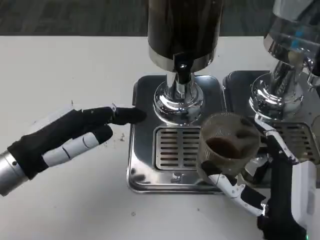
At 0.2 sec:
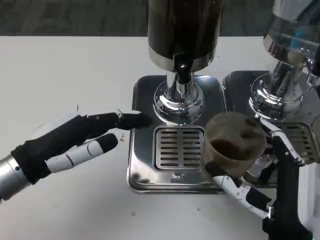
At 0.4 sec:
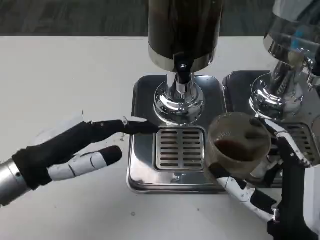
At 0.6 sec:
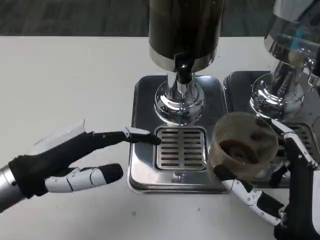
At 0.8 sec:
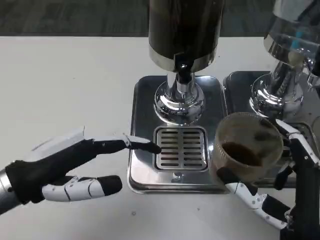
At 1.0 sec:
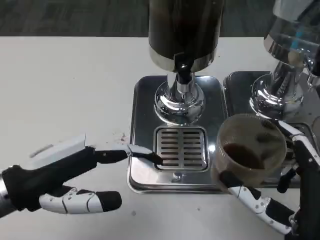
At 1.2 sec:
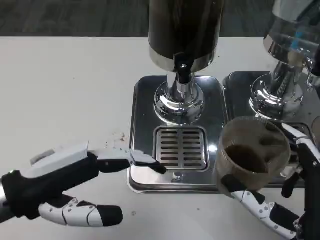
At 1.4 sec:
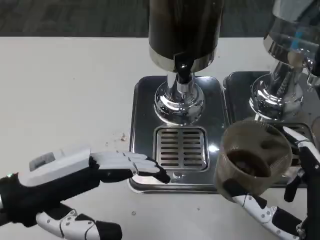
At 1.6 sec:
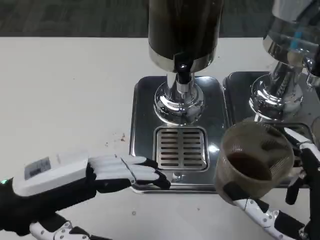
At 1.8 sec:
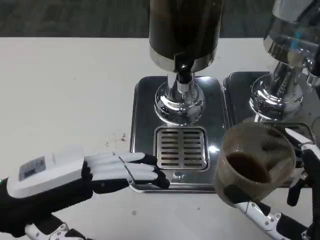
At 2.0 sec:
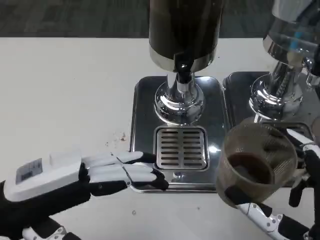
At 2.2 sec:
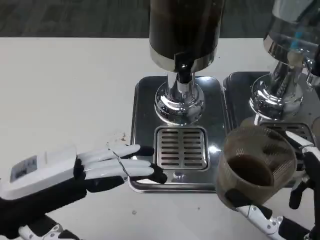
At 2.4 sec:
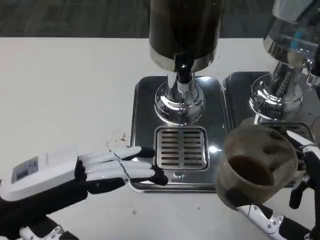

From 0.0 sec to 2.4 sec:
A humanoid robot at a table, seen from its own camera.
Task of the whole recording: Grasp the cup under the faucet to collect the drink, then remove the cup.
From 0.0 sec to 1.2 sec: The right hand changes place by some 5 cm.

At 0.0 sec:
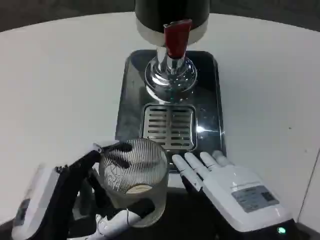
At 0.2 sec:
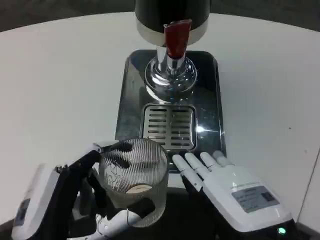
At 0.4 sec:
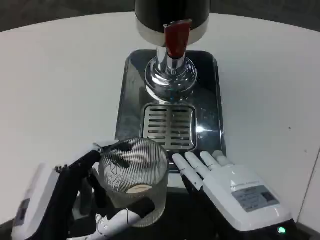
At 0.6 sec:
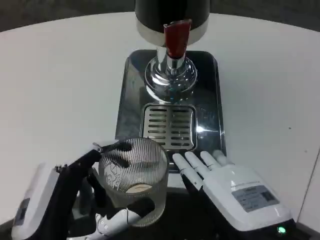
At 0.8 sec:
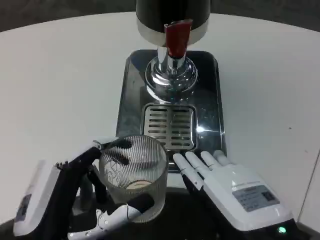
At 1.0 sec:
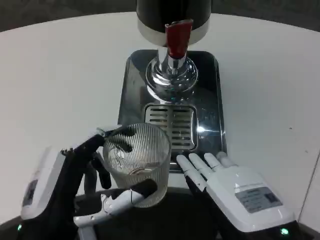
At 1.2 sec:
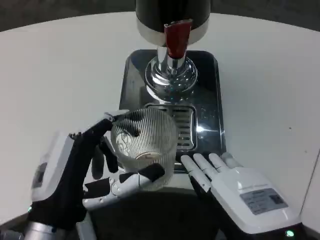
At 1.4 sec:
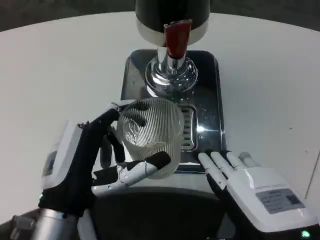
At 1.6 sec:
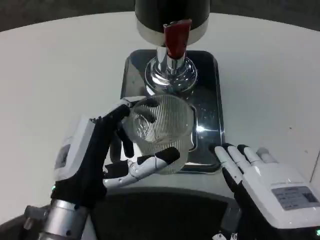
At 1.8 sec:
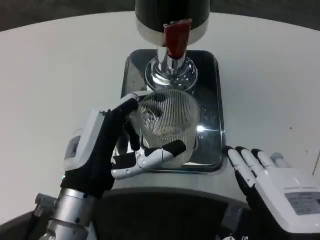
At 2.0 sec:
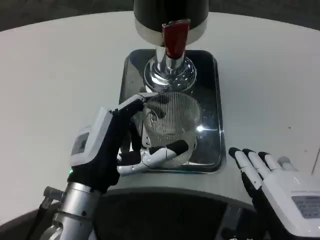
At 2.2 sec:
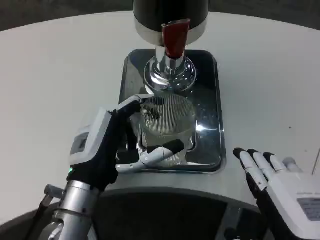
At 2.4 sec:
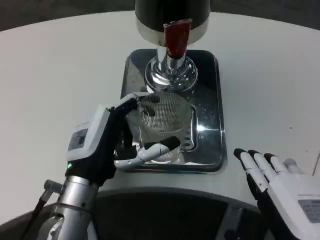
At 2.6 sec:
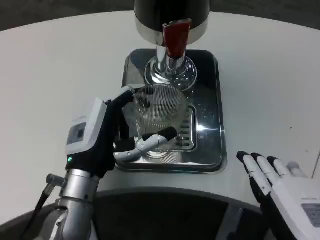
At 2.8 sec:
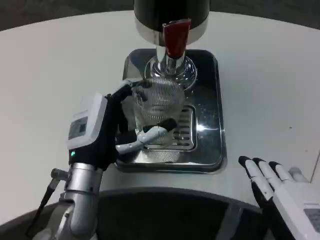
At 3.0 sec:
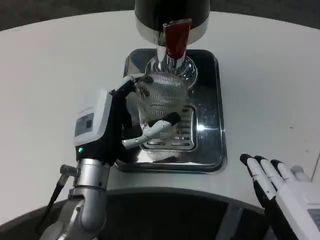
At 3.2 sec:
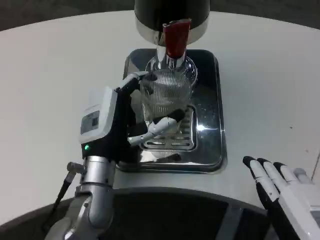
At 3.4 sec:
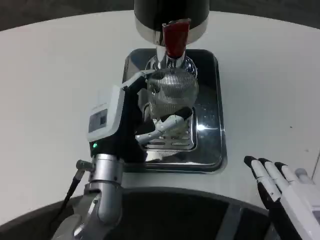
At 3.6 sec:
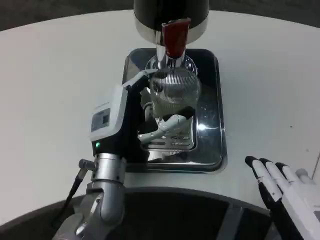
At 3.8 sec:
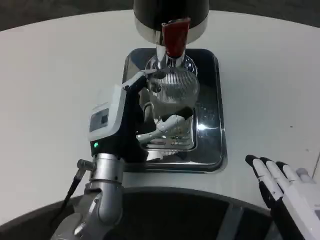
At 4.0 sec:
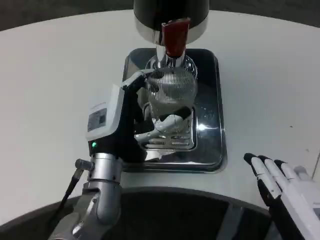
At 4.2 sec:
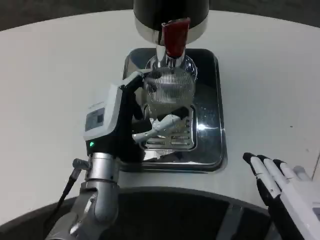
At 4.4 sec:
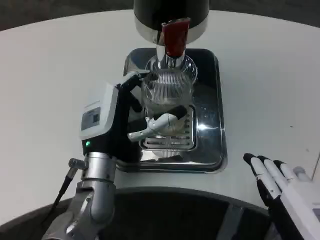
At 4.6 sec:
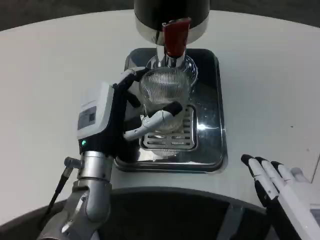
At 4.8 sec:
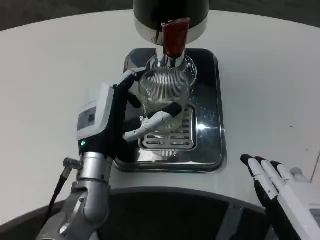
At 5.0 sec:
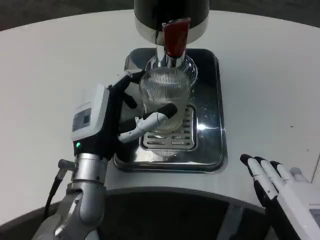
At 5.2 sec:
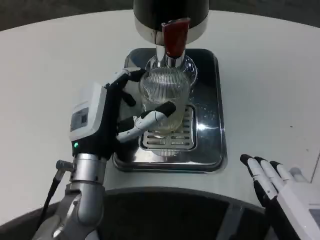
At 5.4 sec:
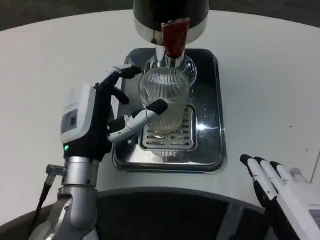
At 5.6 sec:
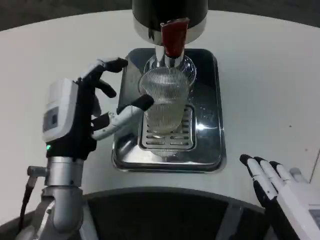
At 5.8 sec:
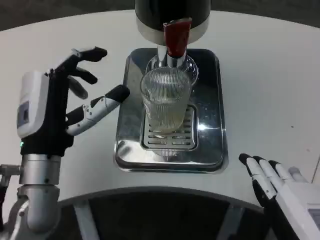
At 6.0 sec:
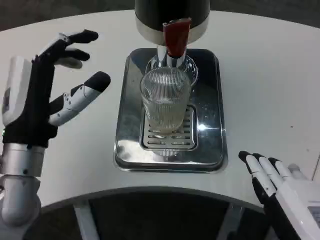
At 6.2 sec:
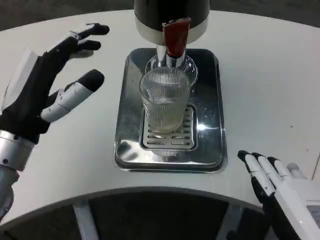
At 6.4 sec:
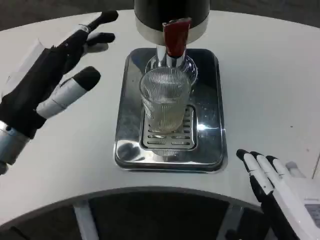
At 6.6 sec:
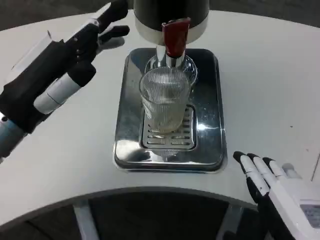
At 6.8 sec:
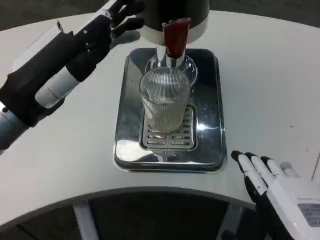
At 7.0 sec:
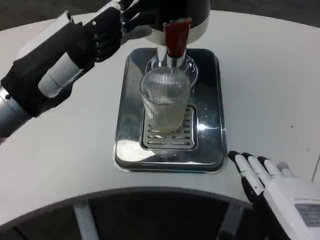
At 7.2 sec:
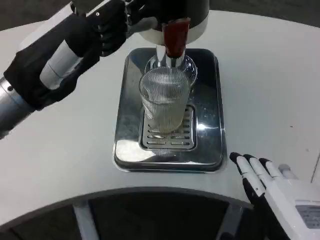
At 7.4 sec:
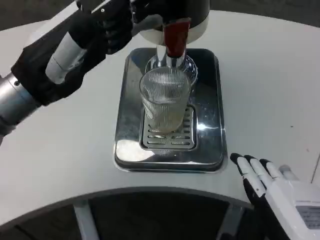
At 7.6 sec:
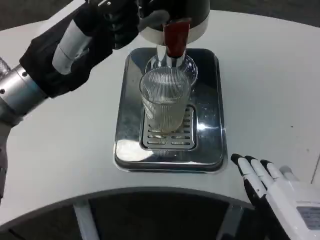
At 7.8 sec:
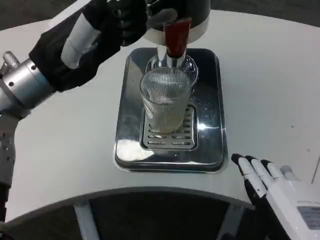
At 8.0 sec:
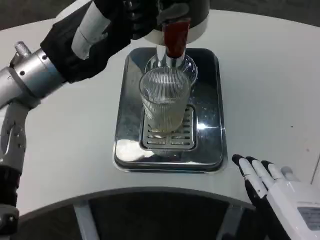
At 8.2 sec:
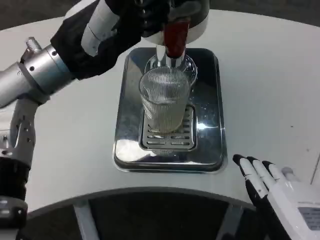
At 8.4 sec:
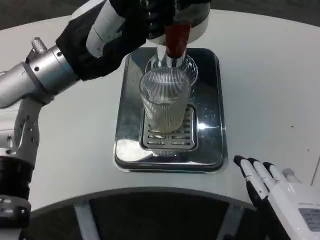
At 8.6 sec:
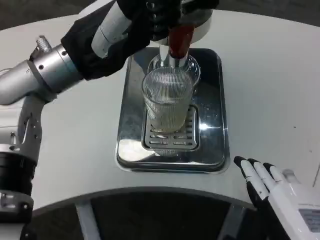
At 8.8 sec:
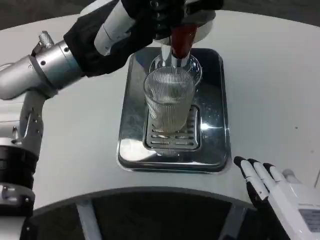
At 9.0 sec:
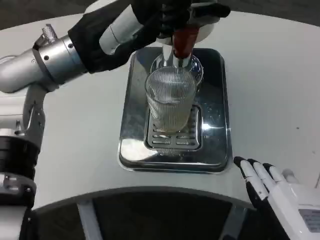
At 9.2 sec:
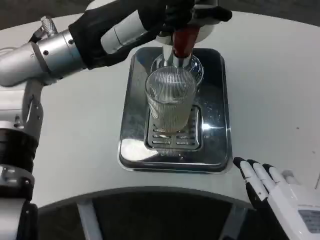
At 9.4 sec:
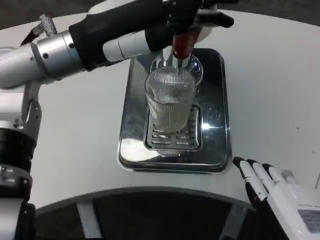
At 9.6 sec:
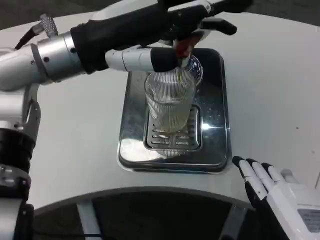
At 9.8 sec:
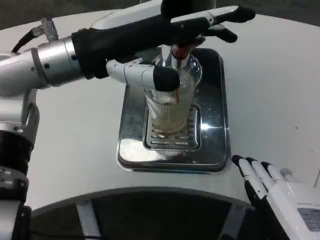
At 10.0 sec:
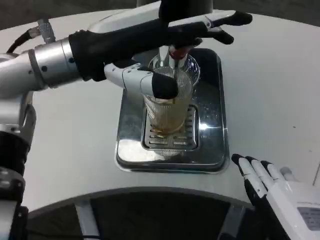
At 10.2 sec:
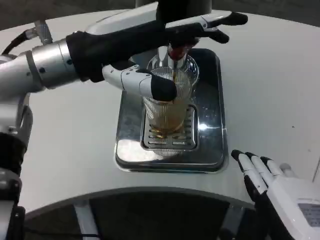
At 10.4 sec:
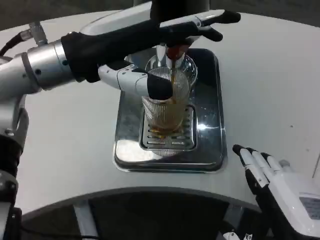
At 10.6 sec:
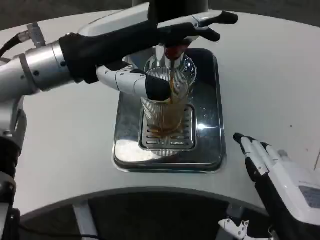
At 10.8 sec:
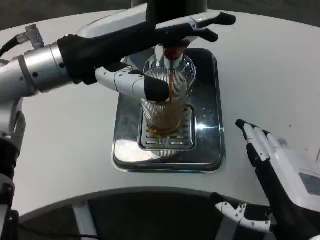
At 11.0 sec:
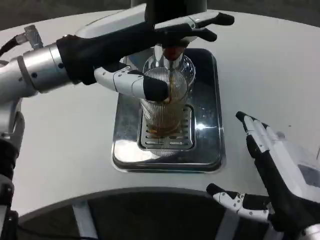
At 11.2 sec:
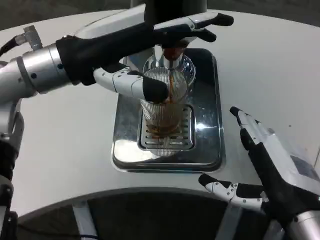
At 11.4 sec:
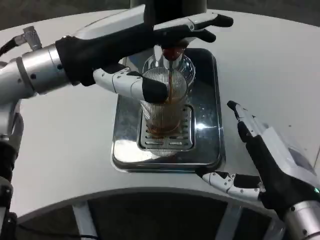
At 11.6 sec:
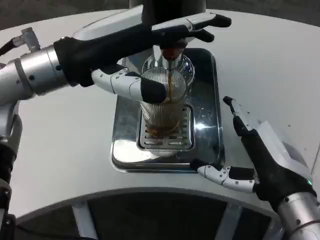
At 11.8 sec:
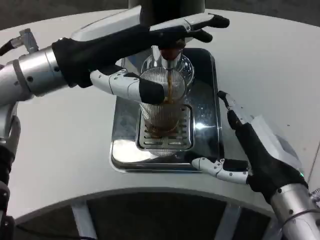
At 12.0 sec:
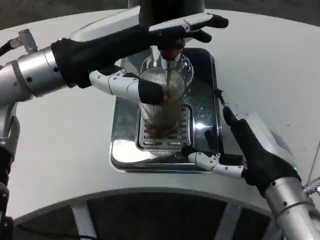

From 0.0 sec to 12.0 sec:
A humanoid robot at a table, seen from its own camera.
Task of the whole recording: Grasp the cup under the faucet to collect the drink, then remove the cup.
From 0.0 sec to 1.6 sec: The left hand goes about 10 cm forward.
From 1.6 sec to 3.0 sec: The left hand moves forward, some 10 cm.
From 3.0 sec to 4.4 sec: There are only small adjustments of the hands.
From 4.4 sec to 6.0 sec: The left hand heads to the left and upward, covering some 10 cm.
From 6.0 sec to 7.6 sec: The left hand is displaced upward by some 10 cm.
From 7.6 sec to 9.0 sec: The left hand ends up approximately 5 cm from where it was.
From 10.4 sec to 12.0 sec: The right hand shifts about 10 cm forward.

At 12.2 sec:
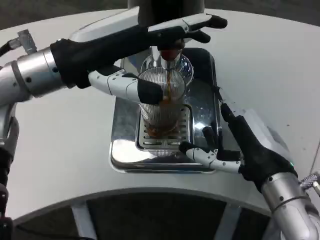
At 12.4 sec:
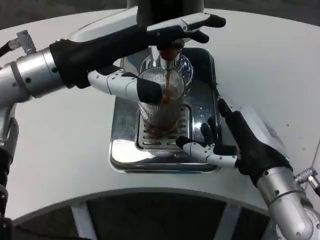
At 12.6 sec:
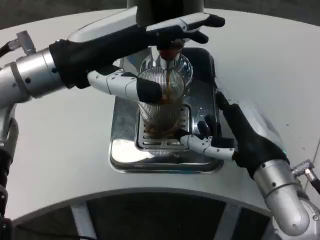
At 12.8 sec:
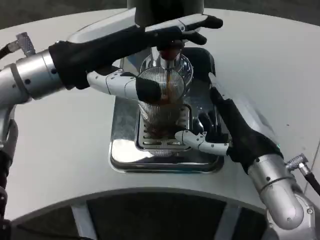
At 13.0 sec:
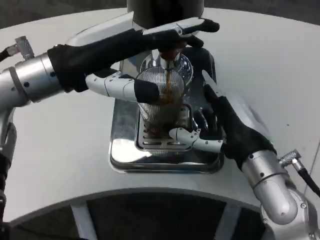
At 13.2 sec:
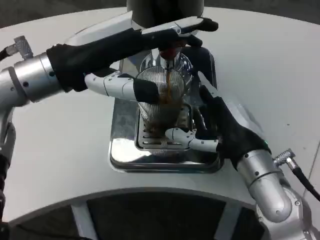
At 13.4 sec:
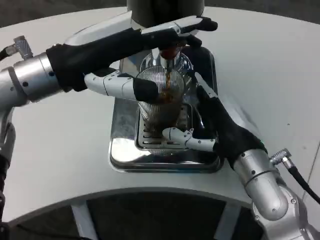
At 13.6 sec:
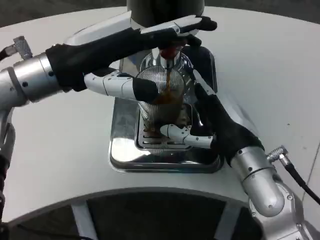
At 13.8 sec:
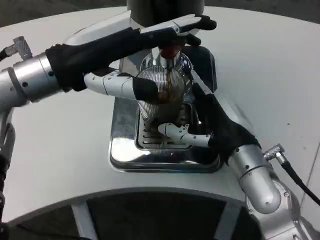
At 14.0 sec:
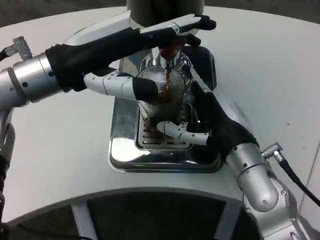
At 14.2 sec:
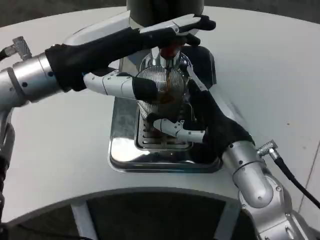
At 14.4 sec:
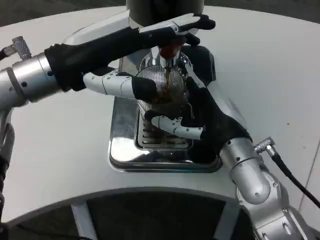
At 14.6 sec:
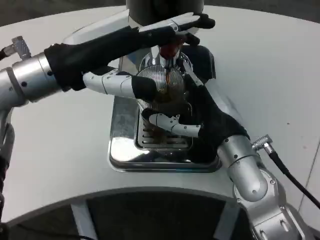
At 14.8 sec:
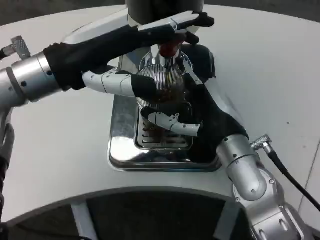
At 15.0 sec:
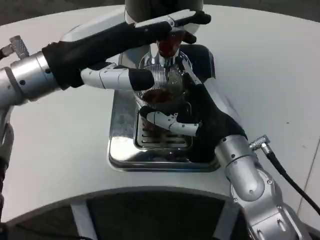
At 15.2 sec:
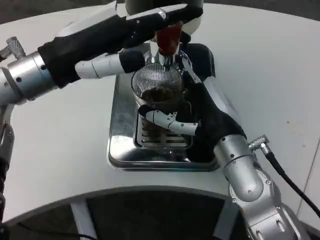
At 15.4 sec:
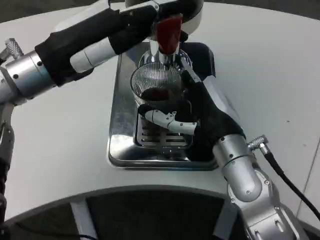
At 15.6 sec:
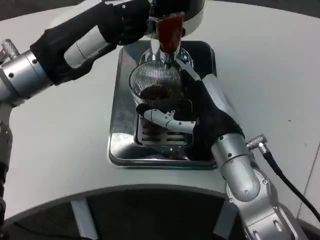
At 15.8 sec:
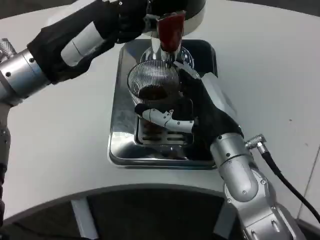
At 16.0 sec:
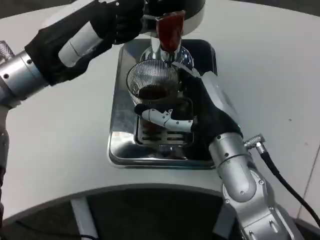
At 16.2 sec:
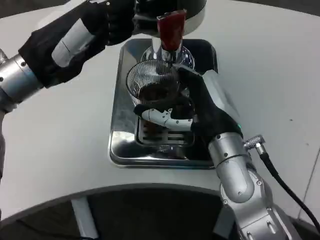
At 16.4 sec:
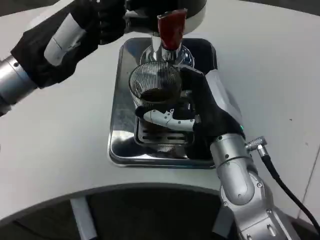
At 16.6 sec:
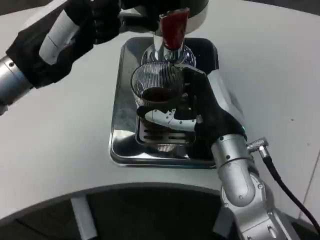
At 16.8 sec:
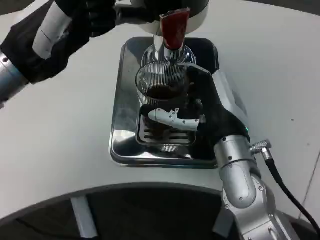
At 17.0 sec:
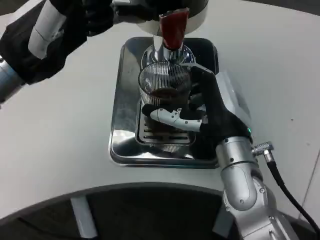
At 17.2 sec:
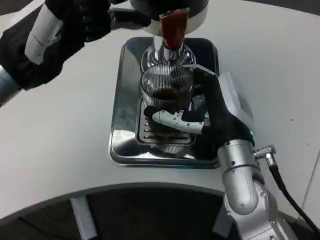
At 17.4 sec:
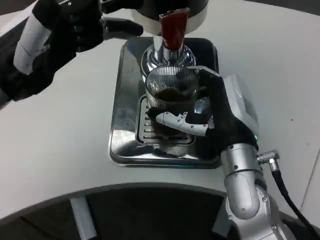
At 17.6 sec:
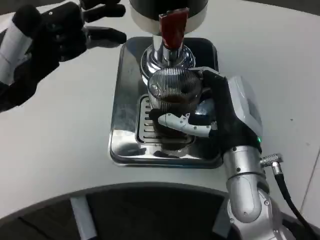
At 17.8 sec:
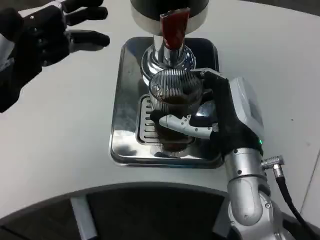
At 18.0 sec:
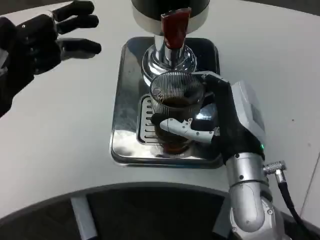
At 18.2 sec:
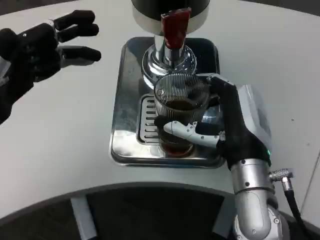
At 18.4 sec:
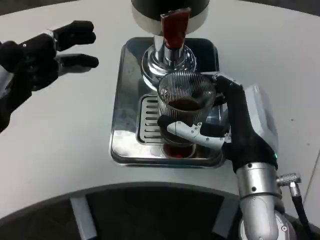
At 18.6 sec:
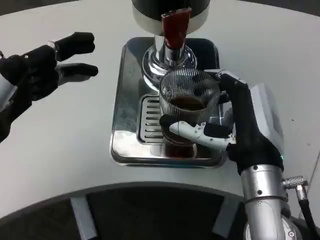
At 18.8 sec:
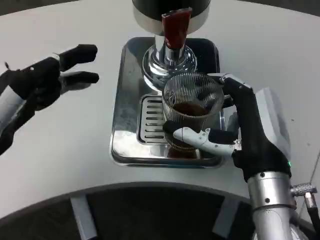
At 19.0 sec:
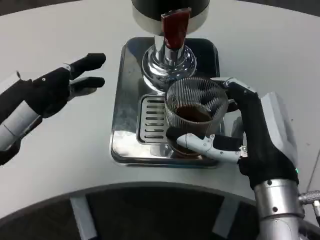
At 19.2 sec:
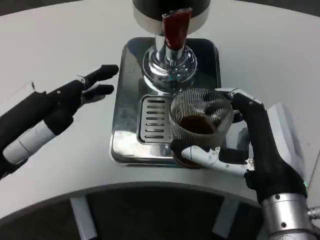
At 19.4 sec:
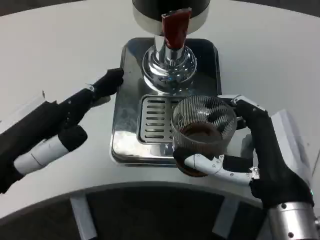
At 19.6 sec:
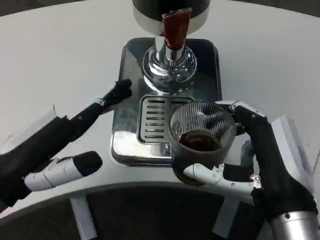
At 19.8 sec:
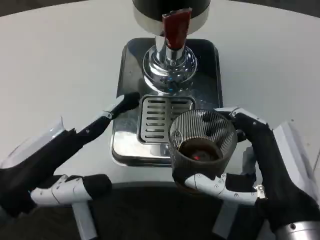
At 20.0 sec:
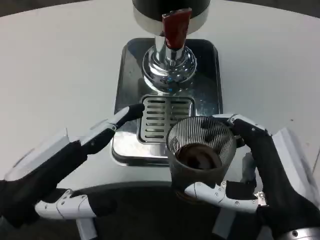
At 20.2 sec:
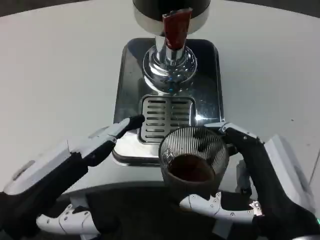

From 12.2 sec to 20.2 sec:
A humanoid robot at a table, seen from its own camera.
Task of the whole recording: Grasp the cup under the faucet to collect the drink, then remove the cup.
From 12.2 sec to 13.8 sec: The right hand ends up about 5 cm from where it was.
From 17.0 sec to 18.6 sec: The left hand is displaced backward by some 10 cm. Meanwhile the right hand changes place by about 5 cm.
From 18.6 sec to 20.2 sec: The right hand travels backward by approximately 10 cm. The left hand heads downward, covering about 5 cm.
